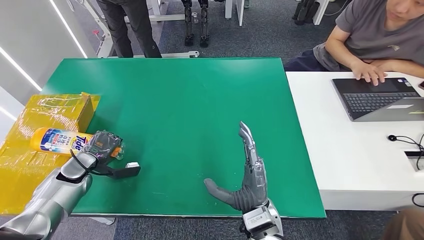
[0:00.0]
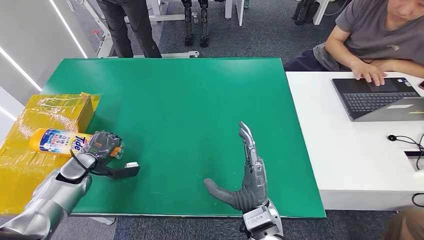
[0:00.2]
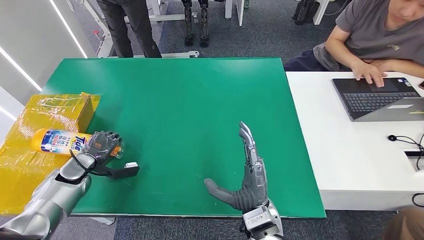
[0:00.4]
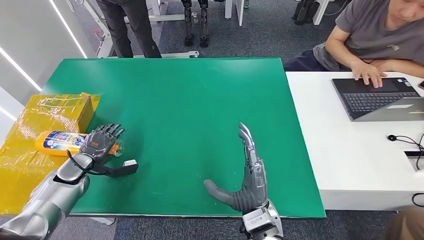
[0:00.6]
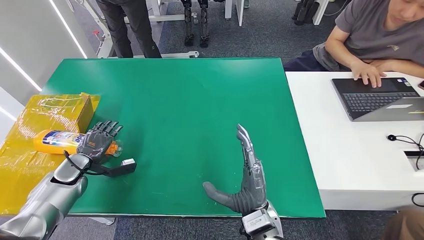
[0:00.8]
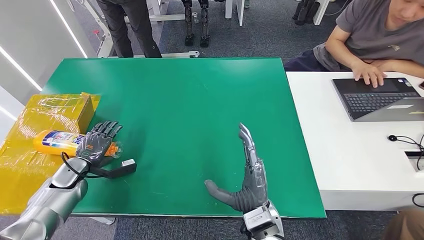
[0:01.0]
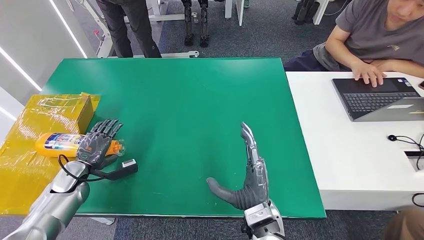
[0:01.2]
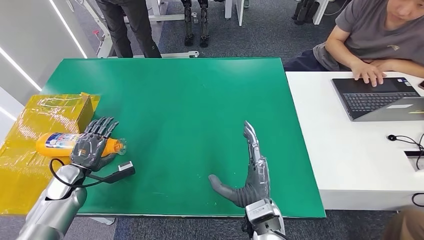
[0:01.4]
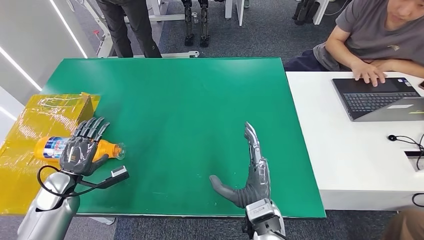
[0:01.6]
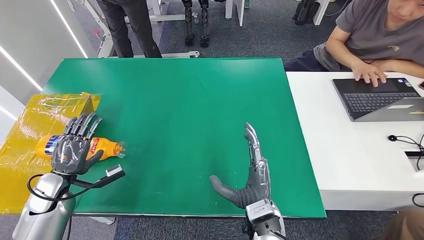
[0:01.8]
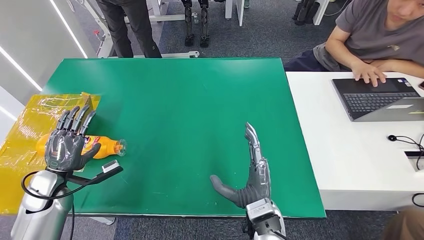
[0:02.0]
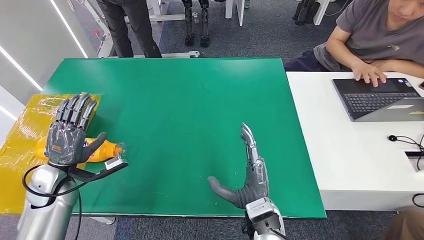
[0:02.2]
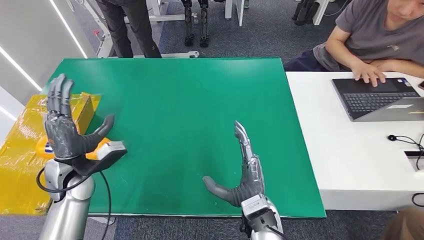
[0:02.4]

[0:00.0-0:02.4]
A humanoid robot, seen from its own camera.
Step, 0:00.0 to 0:02.4: Turn the bottle to the front side.
0:01.2 to 0:02.4: The left hand goes roughly 15 cm upward and to the right.
